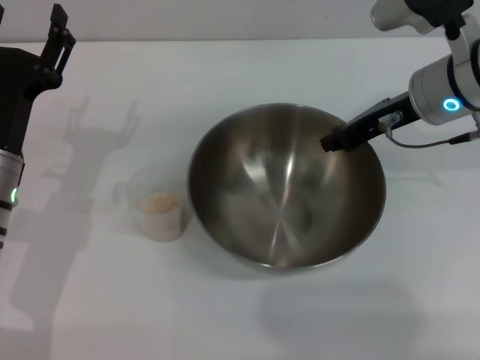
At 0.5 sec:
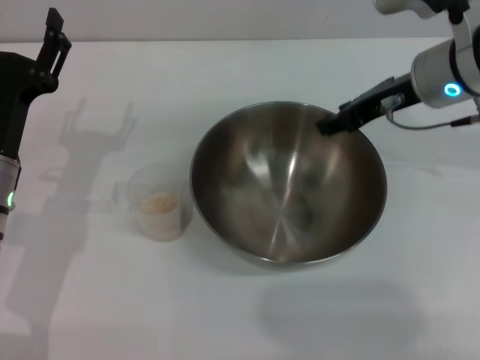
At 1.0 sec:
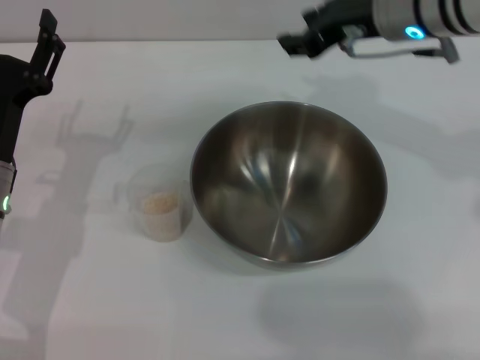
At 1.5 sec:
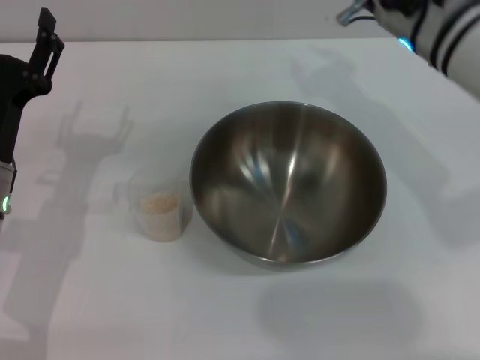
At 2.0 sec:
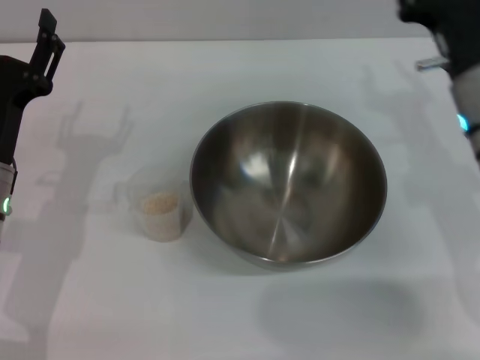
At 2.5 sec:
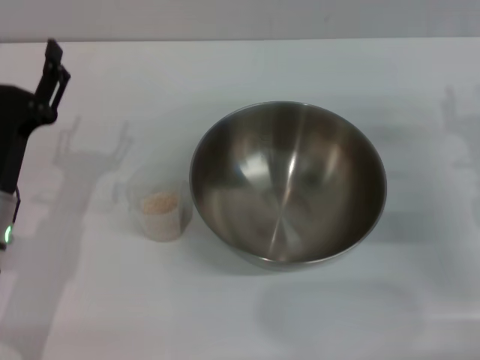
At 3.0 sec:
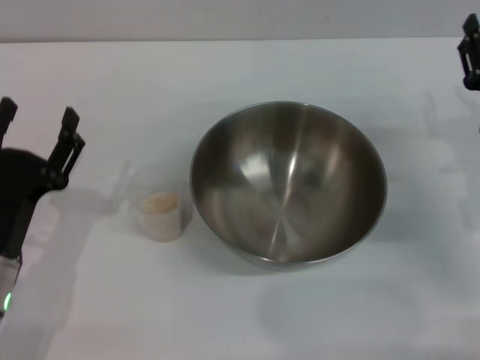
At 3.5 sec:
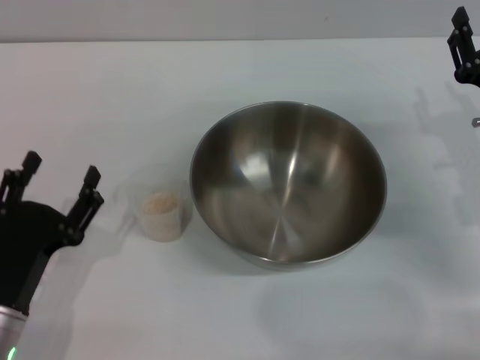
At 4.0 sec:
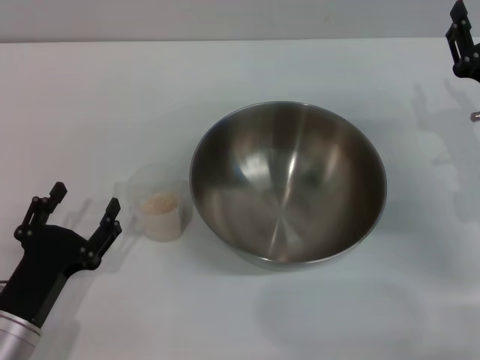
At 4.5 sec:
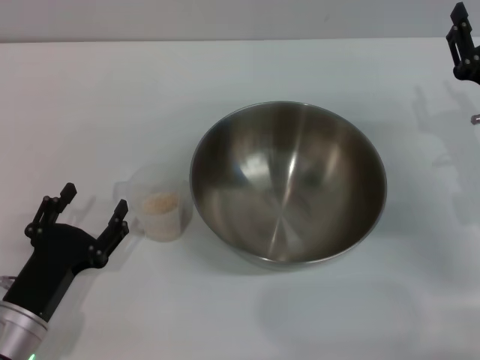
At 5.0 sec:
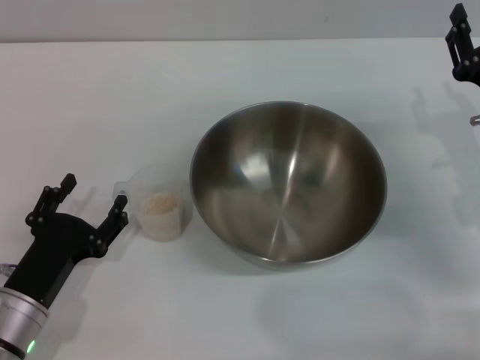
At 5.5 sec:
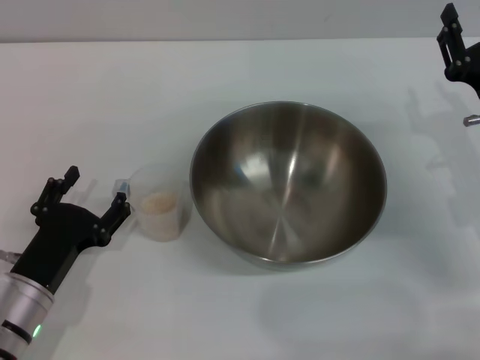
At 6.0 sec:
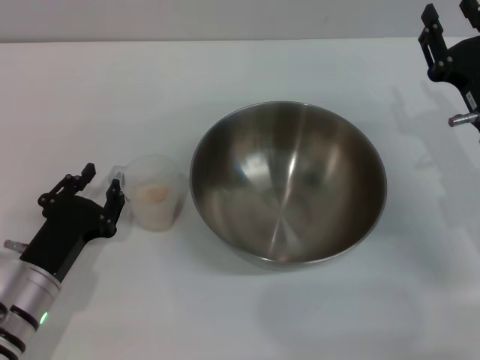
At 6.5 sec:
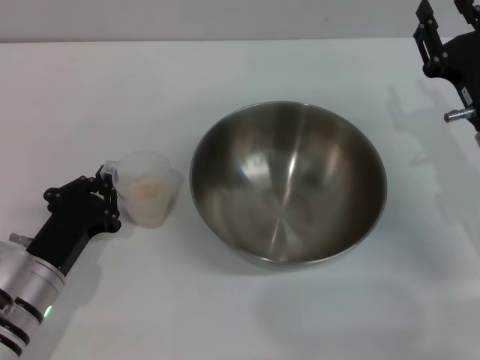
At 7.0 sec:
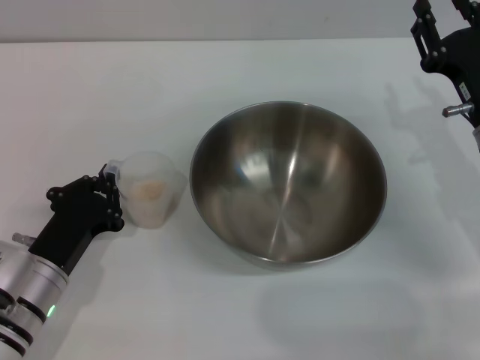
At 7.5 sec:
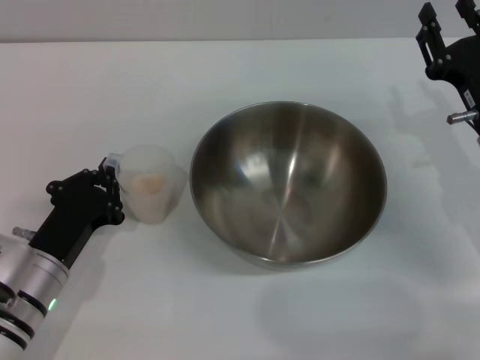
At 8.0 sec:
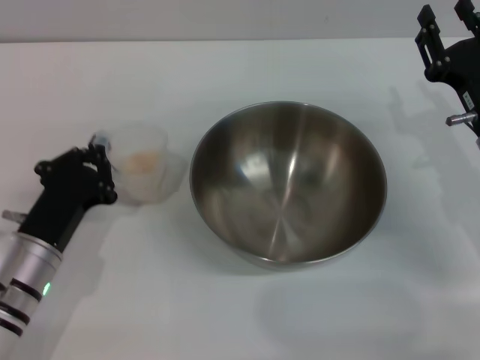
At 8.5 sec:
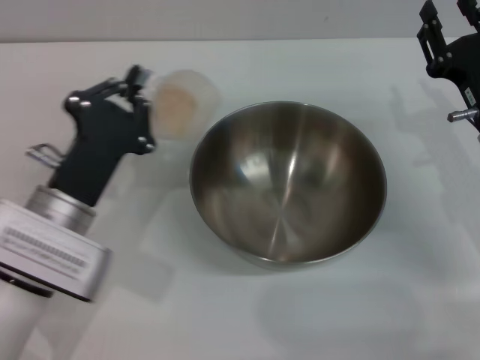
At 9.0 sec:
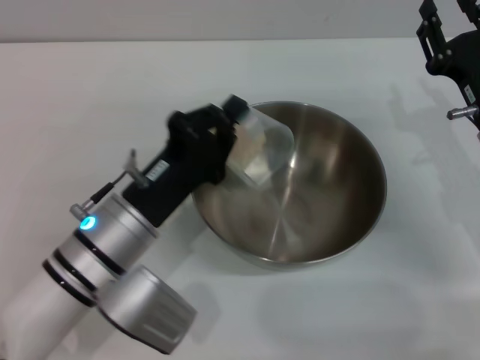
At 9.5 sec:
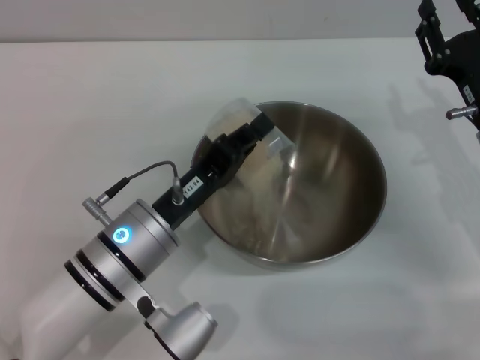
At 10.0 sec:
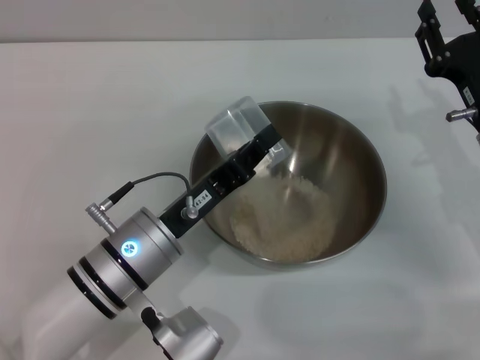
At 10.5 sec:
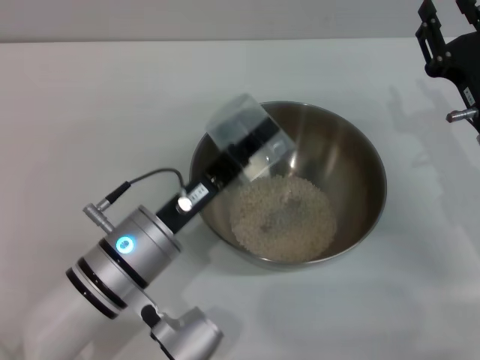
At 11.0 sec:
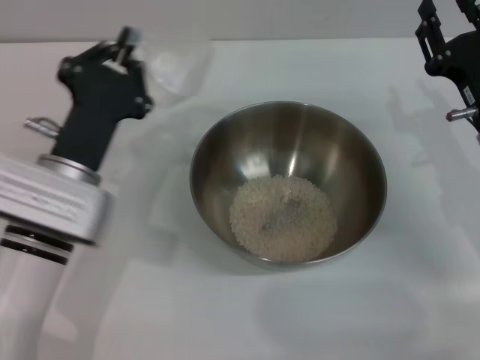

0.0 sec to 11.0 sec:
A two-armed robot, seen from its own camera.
Task of the whole recording: Place the bowl in the middle of the table with one hand and pour the rice from the grain cup into it with the other hand.
Step, 1.5 sec to 8.0 sec: Pick up the cup with rice in it with the left gripper.
Step, 8.5 sec to 11.0 sec: Pour the rice from the cup into the bowl with the left gripper.
0.0 sec to 2.0 sec: The right gripper heads backward and downward, covering some 10 cm, and opens its fingers.
2.0 sec to 3.5 sec: The left gripper heads backward and downward, covering about 10 cm, while the right gripper travels to the right by approximately 5 cm.
3.5 sec to 5.5 sec: The grippers move only a little.
5.5 sec to 7.5 sec: The left gripper closes up.
7.5 sec to 9.0 sec: The left gripper heads to the right and upward, covering about 10 cm.

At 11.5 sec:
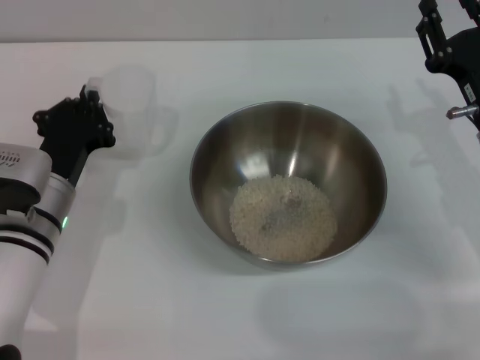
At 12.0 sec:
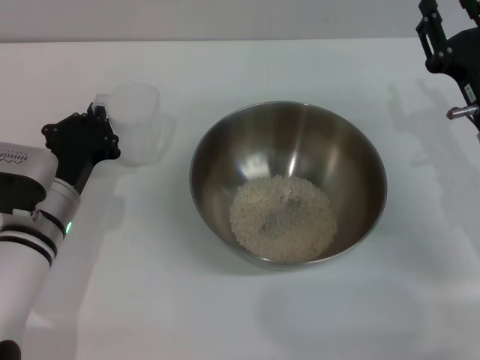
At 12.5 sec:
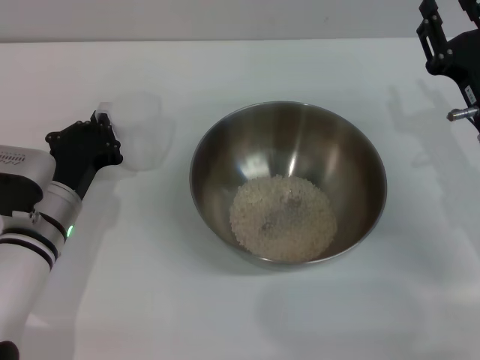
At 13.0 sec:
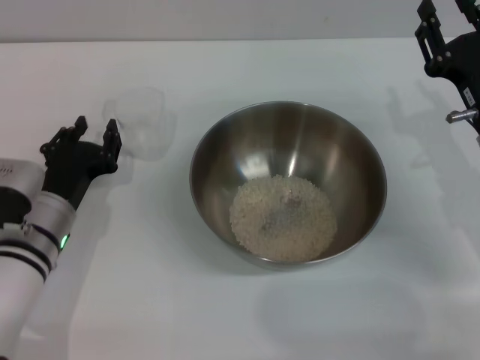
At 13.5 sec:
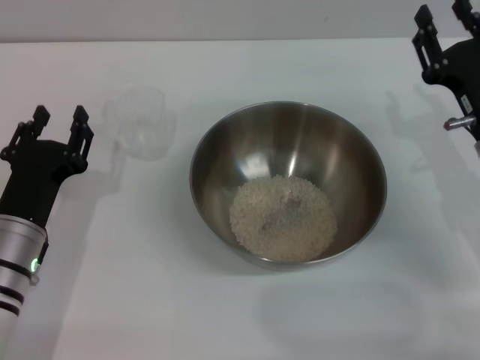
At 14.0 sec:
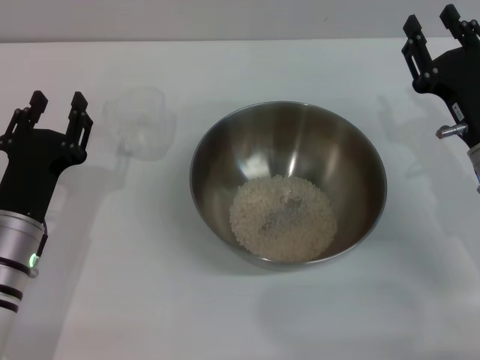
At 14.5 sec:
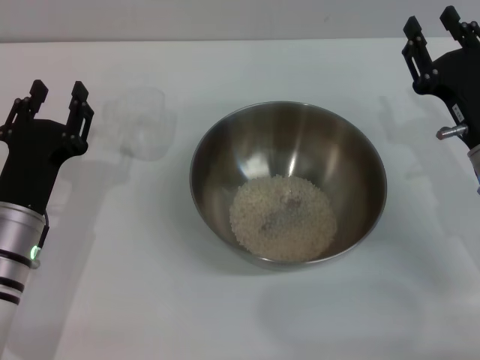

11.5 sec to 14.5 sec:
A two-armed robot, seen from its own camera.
Task of the whole recording: Place the bowl in the middle of the table with one hand and pour the rice from the grain cup into it with the other hand.
Step, 11.5 sec to 13.5 sec: Place the cup on the table with the left gripper.
11.5 sec to 13.0 sec: There are only small adjustments of the grippers.
13.0 sec to 14.5 sec: The left gripper opens its fingers.

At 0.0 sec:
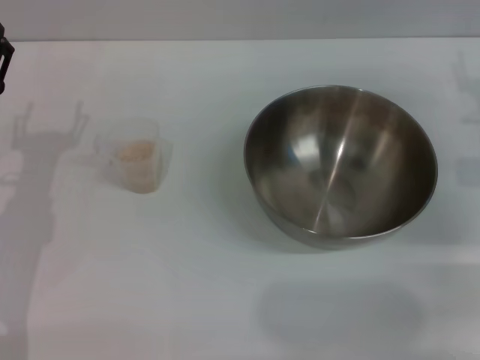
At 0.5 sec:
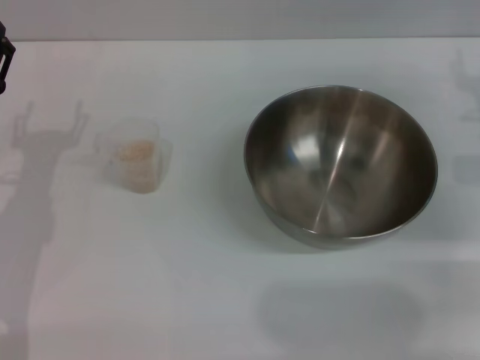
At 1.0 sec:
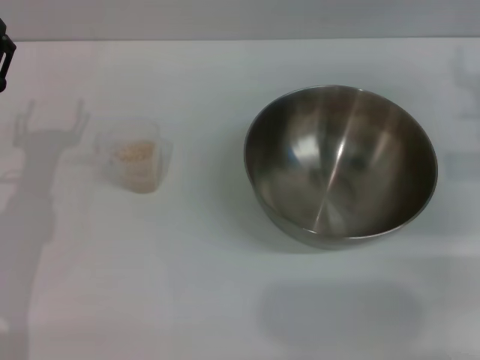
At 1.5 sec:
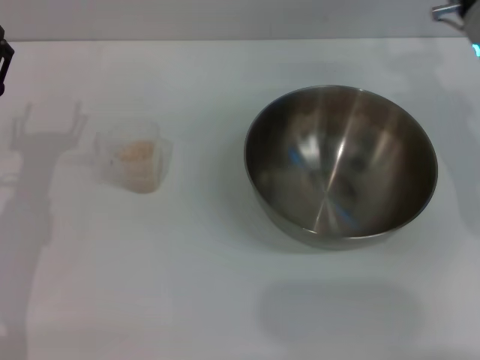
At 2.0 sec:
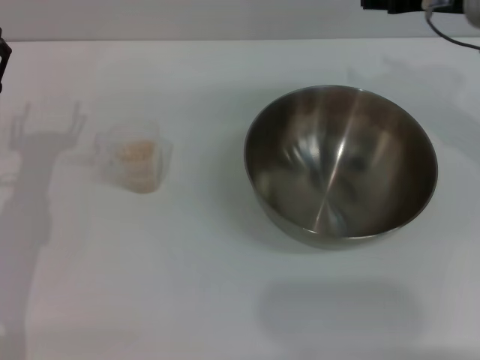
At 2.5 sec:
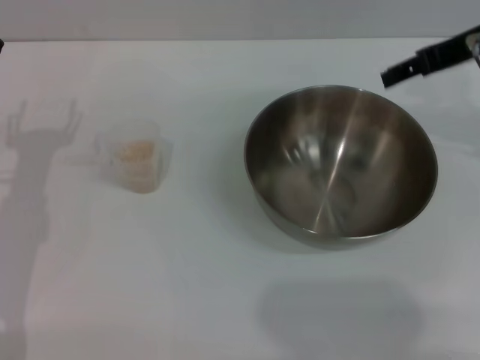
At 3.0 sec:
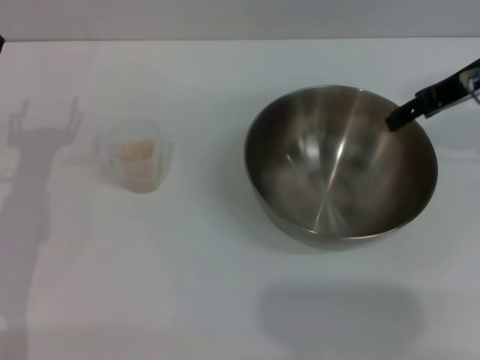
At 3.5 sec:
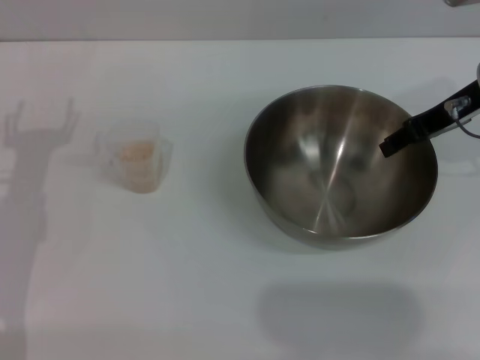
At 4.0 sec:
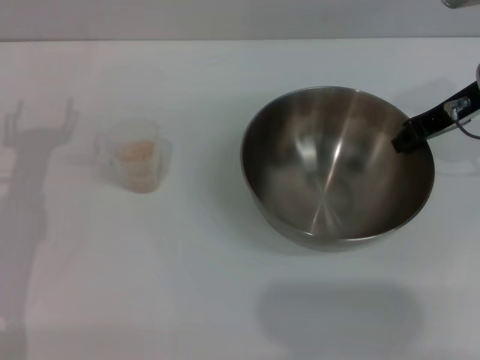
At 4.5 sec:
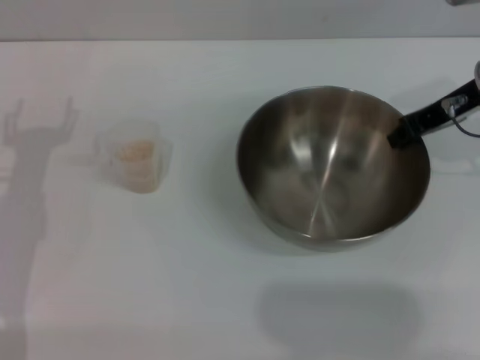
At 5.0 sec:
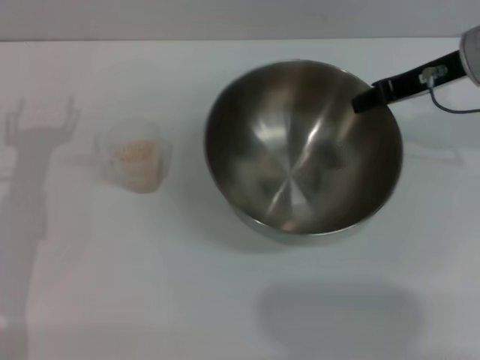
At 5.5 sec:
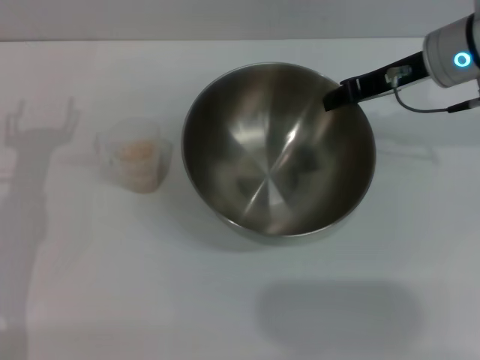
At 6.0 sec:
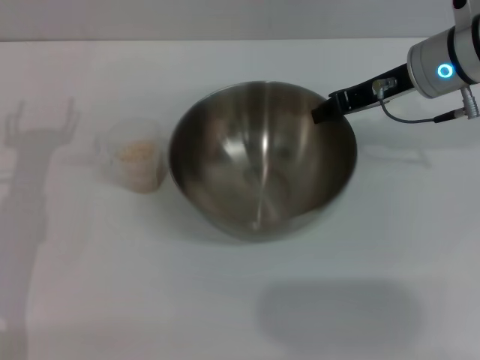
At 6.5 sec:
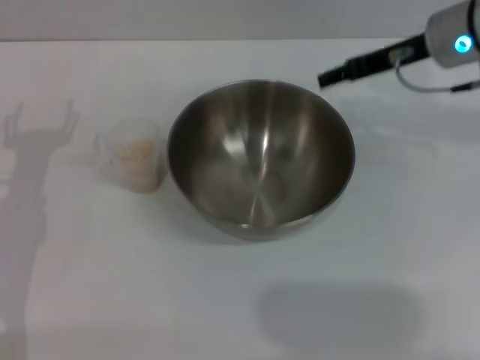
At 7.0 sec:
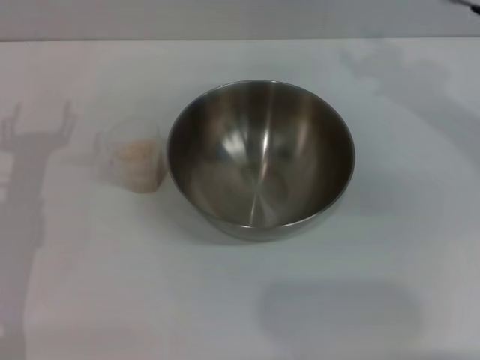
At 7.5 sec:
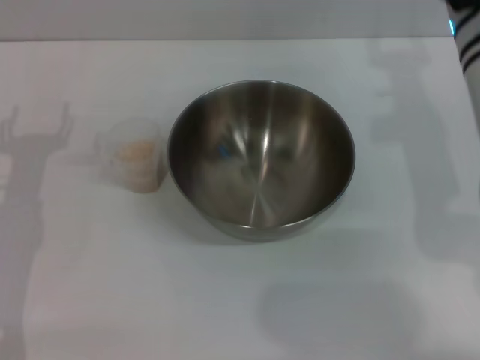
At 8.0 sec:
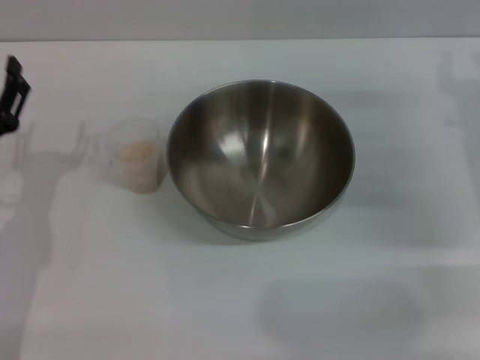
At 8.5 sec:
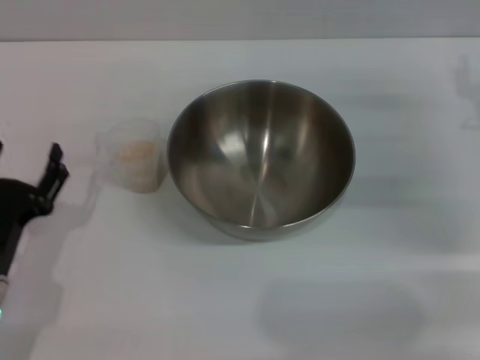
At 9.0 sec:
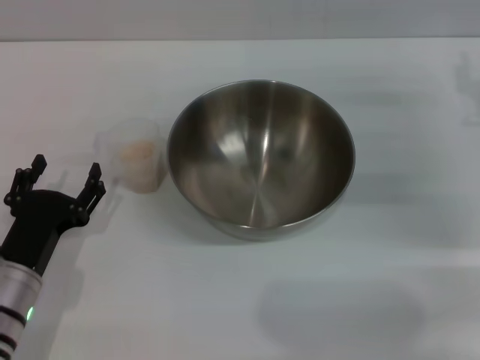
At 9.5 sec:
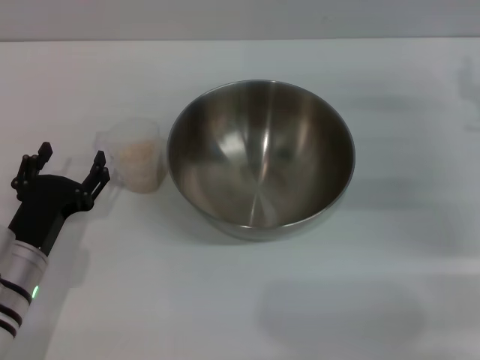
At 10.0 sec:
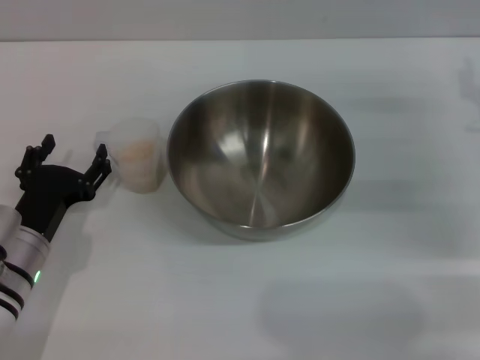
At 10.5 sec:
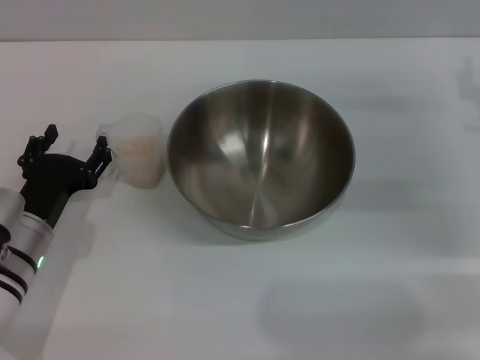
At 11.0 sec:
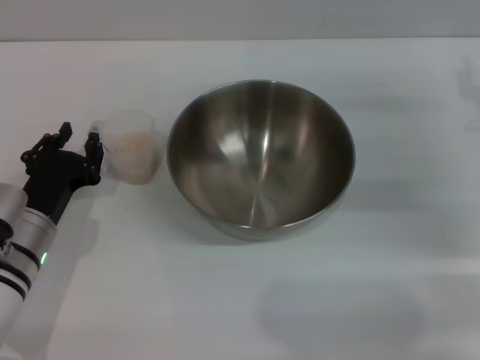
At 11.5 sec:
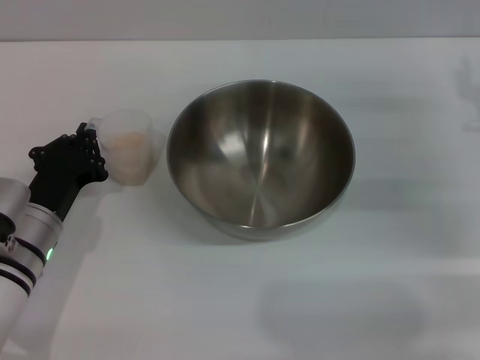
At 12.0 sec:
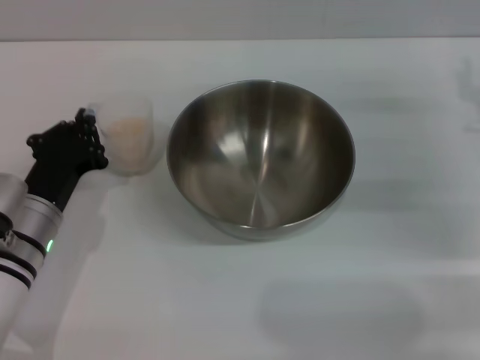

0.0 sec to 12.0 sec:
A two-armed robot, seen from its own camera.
Task of the whole recording: Place the bowl in the middle of the table with one hand and pour the rice from the grain cup into it with the other hand.
Step, 0.0 sec to 5.5 sec: Pick up the bowl with the right gripper.
Step, 6.0 sec to 8.0 sec: Place the bowl in the center of view with the right gripper.
0.0 sec to 2.0 sec: The right gripper heads upward, to the left and forward, covering roughly 15 cm.
2.0 sec to 4.0 sec: The right gripper ends up some 5 cm from where it was, and closes.
4.0 sec to 6.0 sec: The right gripper changes place by roughly 5 cm.
6.0 sec to 8.0 sec: The right gripper goes approximately 10 cm to the right and backward, and opens its fingers.
8.0 sec to 10.0 sec: The left gripper shifts by approximately 5 cm.
10.0 sec to 12.0 sec: The left gripper closes up.
